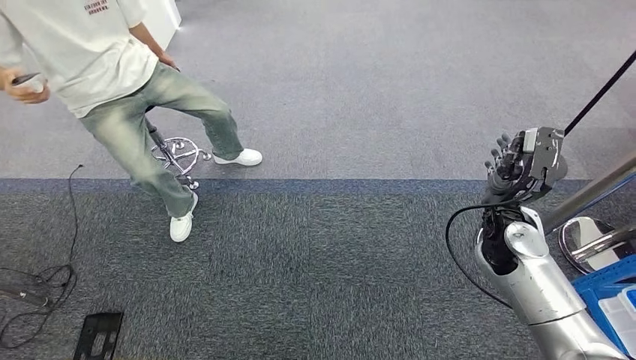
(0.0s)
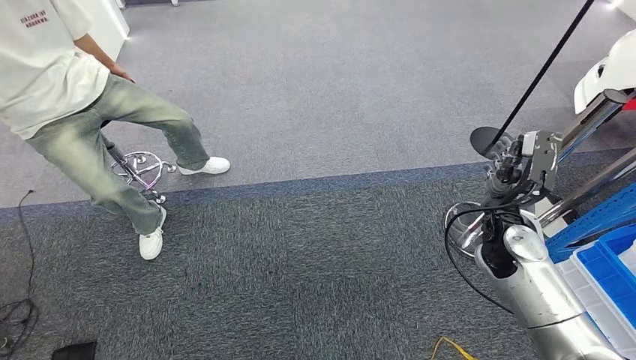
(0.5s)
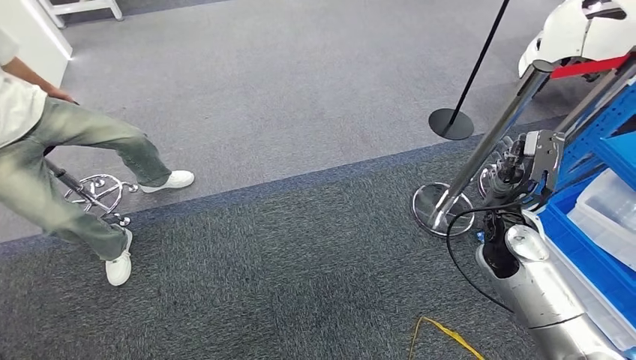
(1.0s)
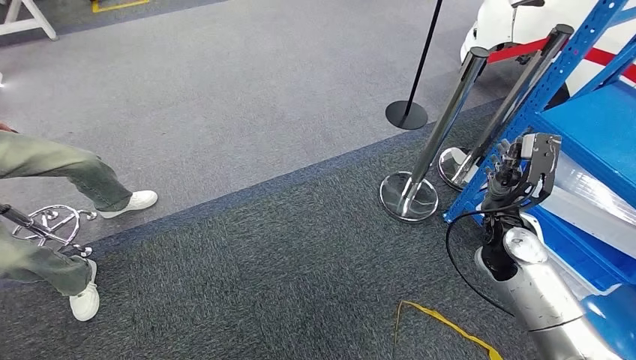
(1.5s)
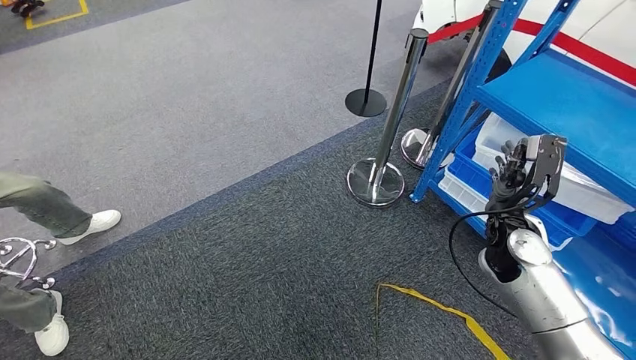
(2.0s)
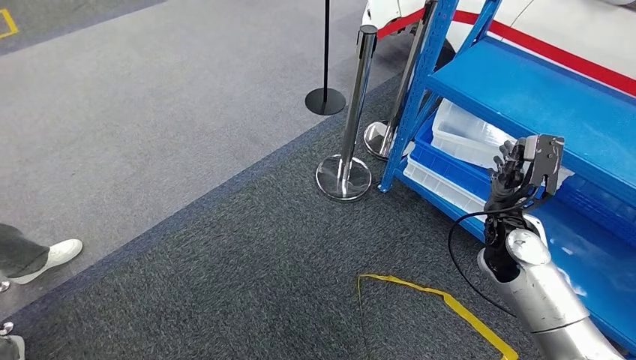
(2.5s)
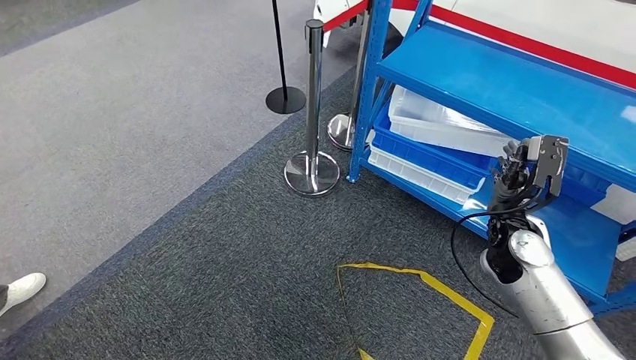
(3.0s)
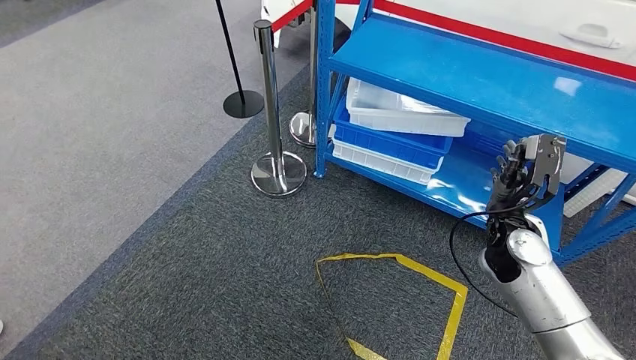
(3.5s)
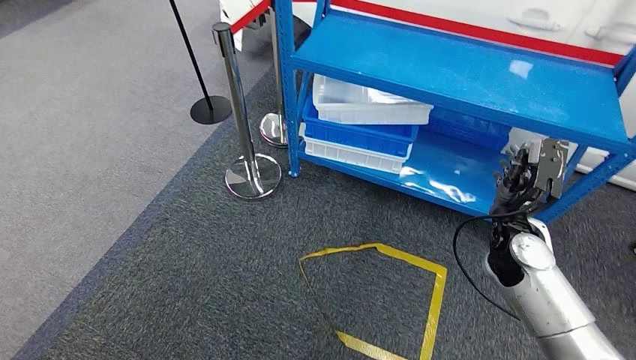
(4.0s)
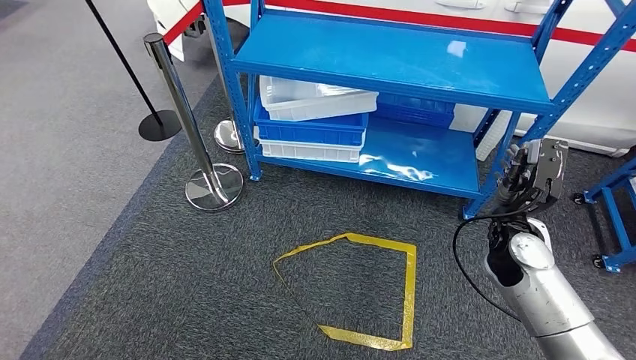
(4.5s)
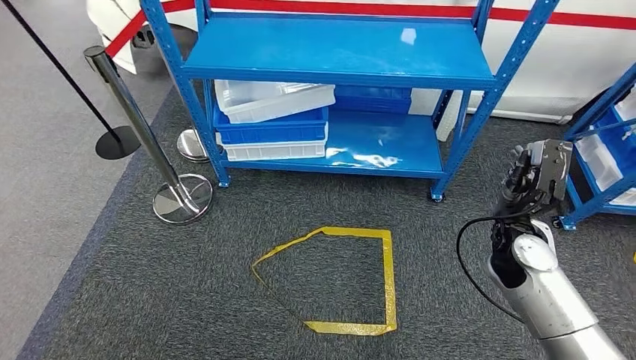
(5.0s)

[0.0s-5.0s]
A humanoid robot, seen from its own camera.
Step, 0.0s to 5.0s: Return to the initial position at the shelf.
